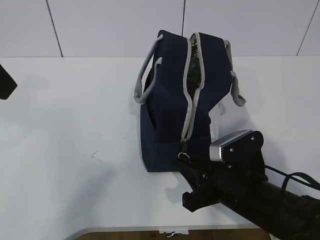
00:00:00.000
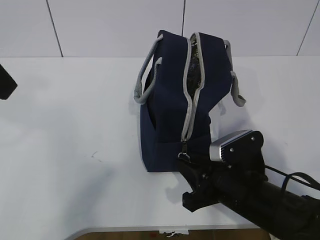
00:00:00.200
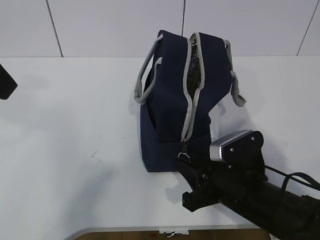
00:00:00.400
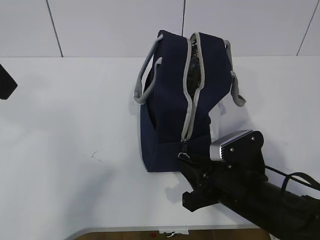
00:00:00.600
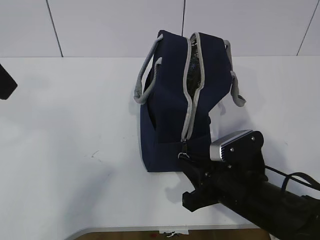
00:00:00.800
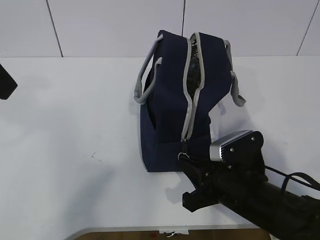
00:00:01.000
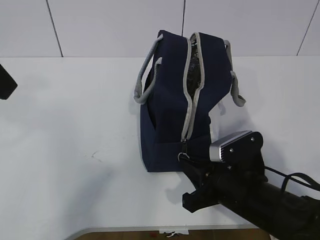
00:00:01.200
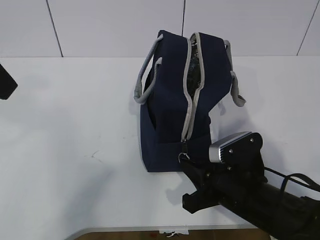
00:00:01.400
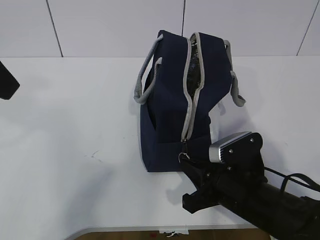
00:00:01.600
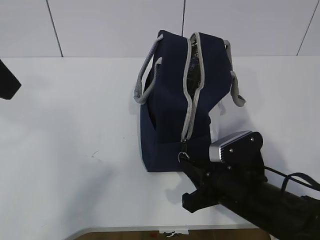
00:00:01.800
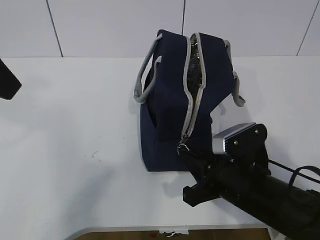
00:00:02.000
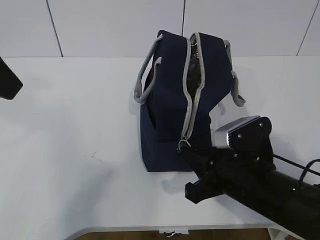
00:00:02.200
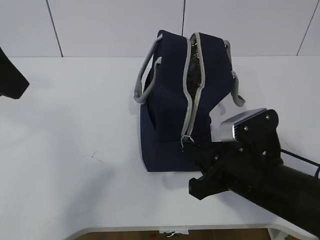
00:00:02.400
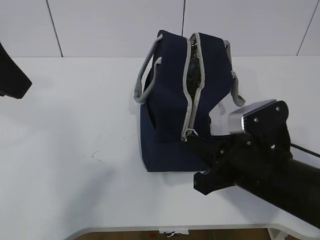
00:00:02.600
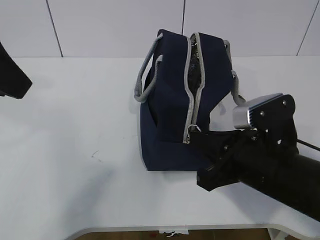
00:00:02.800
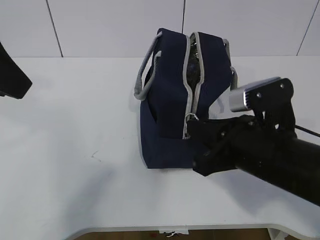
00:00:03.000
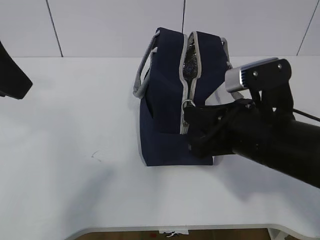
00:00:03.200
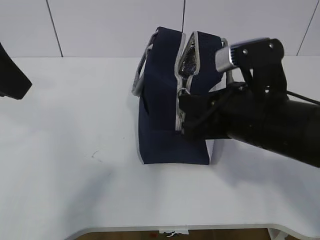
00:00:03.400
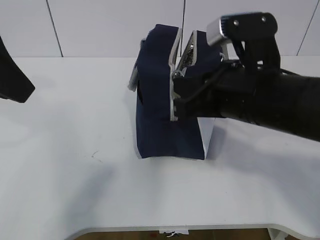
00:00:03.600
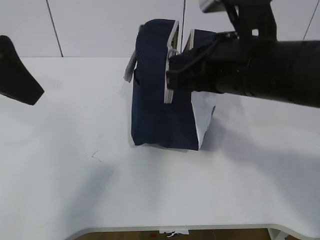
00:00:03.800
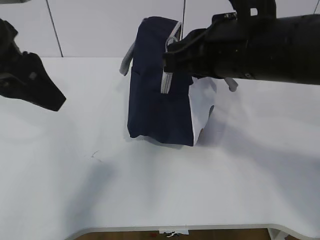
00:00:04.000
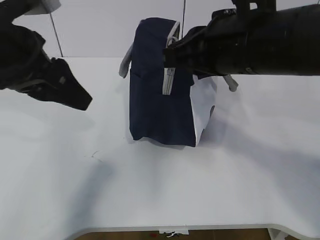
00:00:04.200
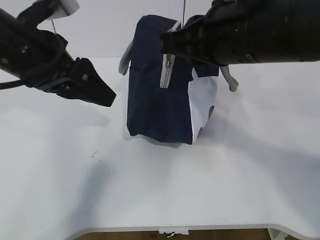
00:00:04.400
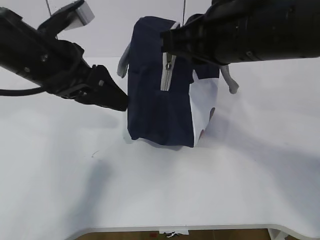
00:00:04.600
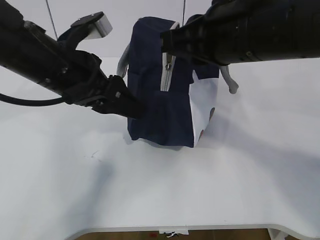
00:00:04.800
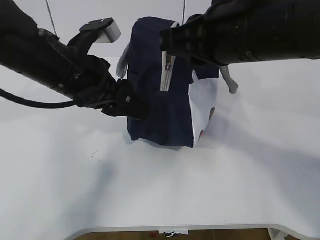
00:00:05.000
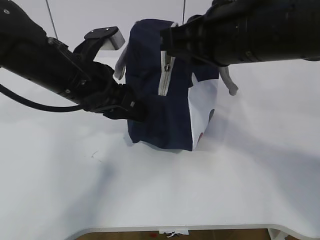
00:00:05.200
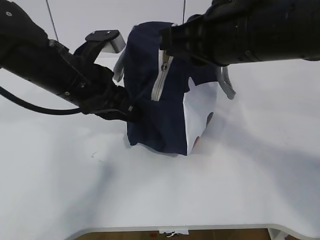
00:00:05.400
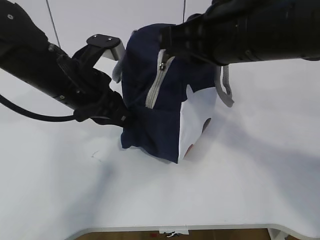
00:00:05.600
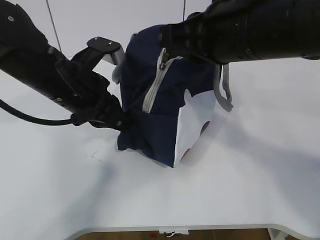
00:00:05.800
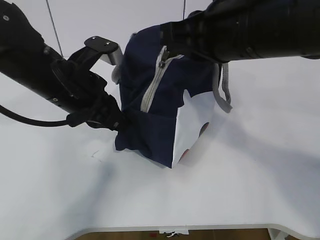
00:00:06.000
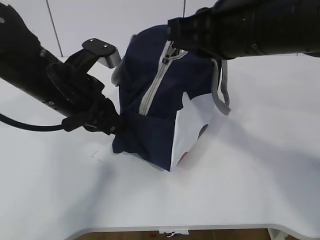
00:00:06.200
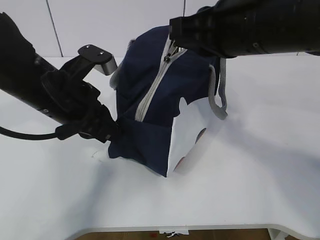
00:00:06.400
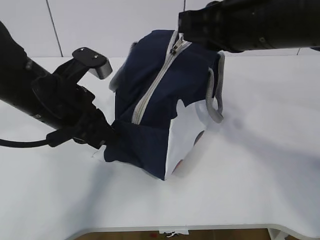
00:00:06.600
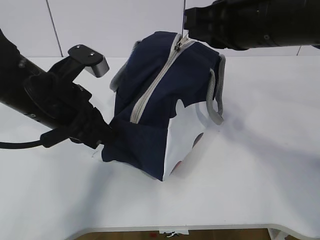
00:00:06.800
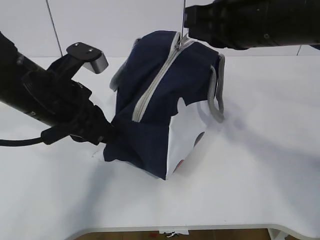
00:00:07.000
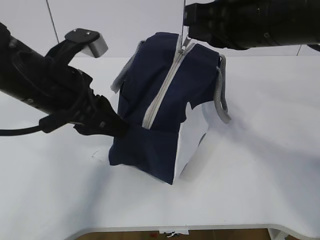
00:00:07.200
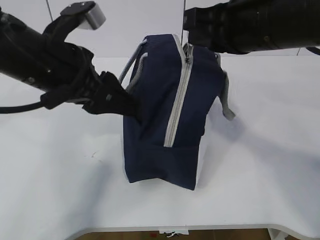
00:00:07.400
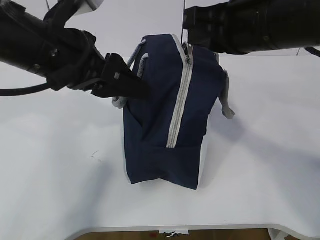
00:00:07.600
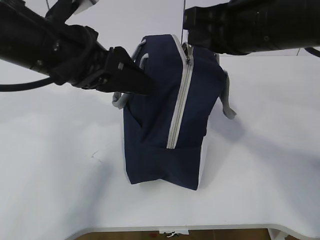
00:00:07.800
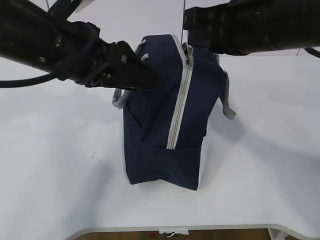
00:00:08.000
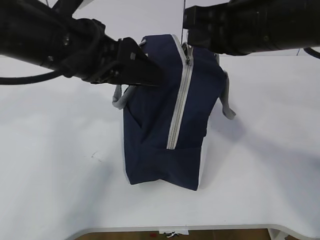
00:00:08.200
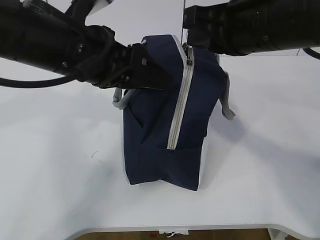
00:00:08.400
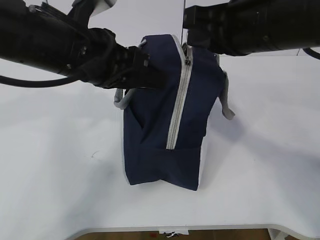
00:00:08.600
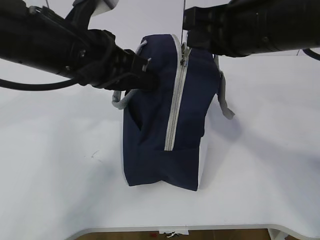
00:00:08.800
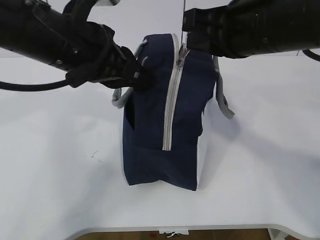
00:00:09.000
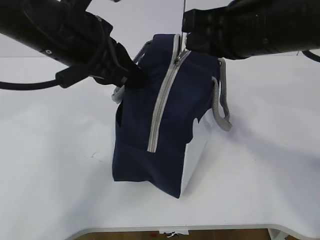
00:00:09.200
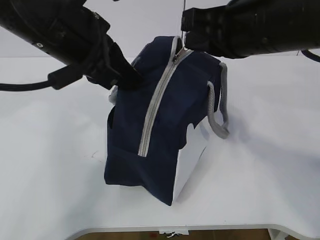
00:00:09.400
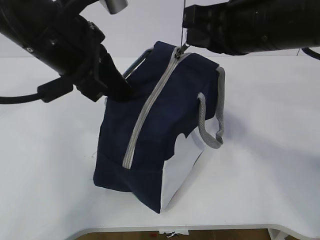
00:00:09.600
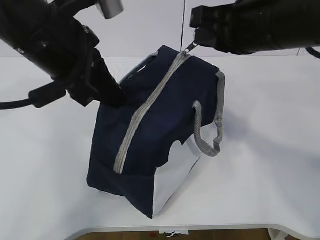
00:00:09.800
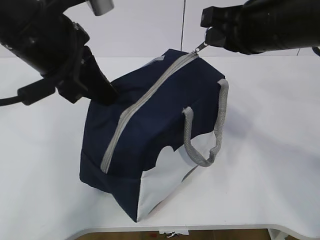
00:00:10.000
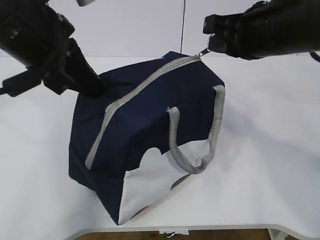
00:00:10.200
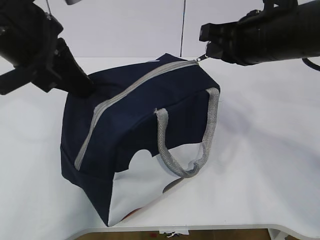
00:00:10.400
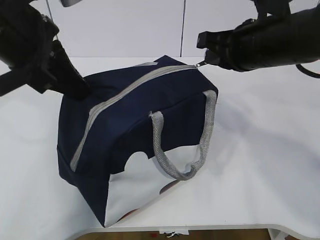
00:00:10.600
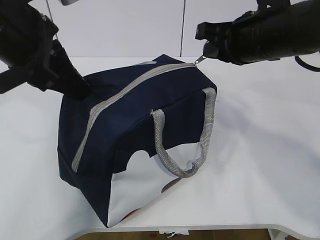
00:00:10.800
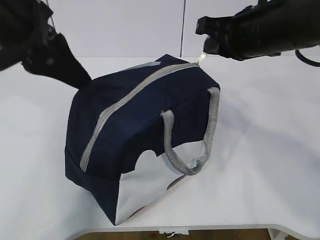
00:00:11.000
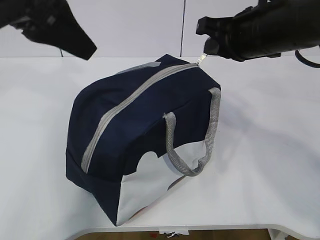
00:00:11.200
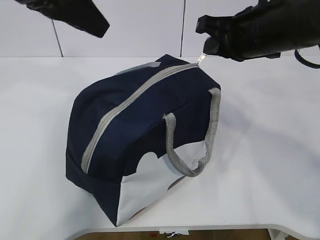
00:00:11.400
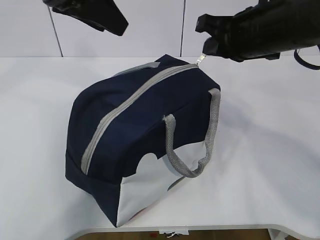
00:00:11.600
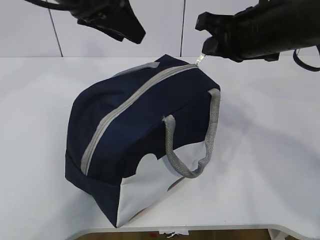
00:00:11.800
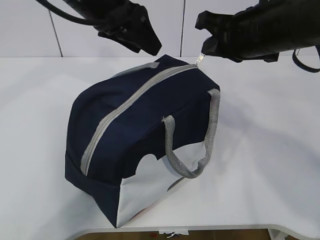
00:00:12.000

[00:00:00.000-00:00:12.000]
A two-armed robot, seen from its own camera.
Step, 00:00:00.000 to 00:00:11.800: Pull the zipper with your right hand.
00:00:00.000 to 00:00:01.600: The right gripper closes its fingers.
00:00:01.600 to 00:00:03.000: The right gripper heads upward, covering roughly 10 cm.
00:00:03.000 to 00:00:04.400: The left gripper travels downward and forward by roughly 10 cm. Meanwhile the right gripper travels upward by approximately 15 cm.
00:00:04.400 to 00:00:06.000: The left gripper goes some 5 cm downward, and closes.
00:00:06.000 to 00:00:07.600: The left gripper goes about 5 cm upward, and opens up.
00:00:07.600 to 00:00:09.000: The left gripper closes.
00:00:09.000 to 00:00:10.400: The right gripper ends up some 5 cm from where it was. The left gripper shifts approximately 5 cm to the left.
00:00:10.400 to 00:00:12.000: The left gripper heads forward and to the right, covering some 10 cm, and opens up.

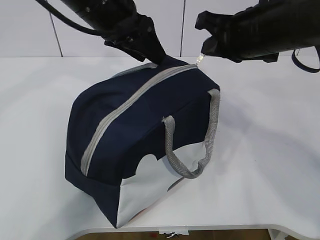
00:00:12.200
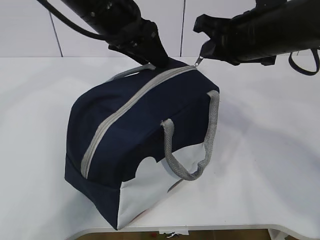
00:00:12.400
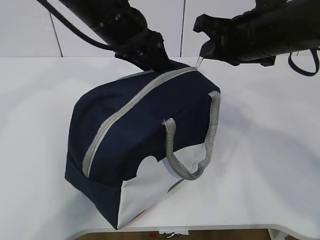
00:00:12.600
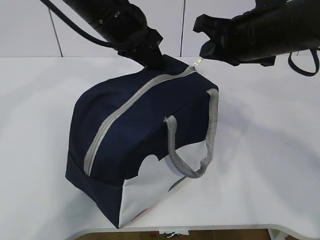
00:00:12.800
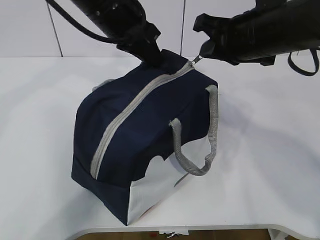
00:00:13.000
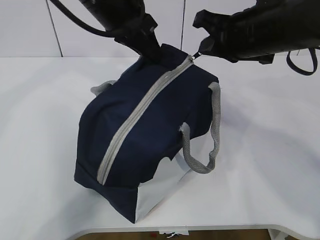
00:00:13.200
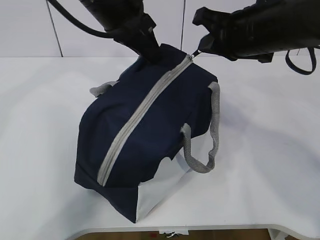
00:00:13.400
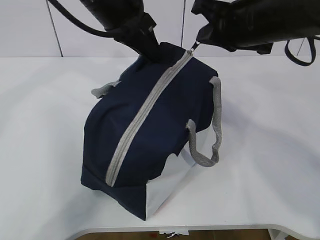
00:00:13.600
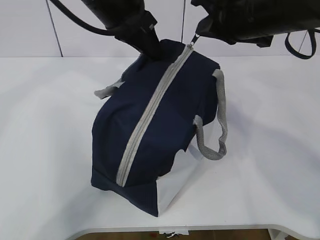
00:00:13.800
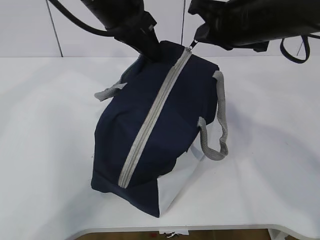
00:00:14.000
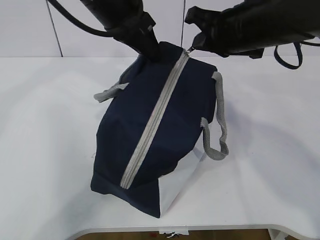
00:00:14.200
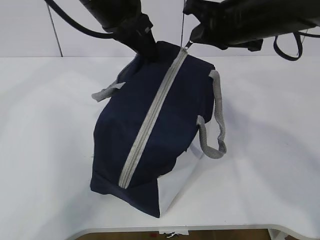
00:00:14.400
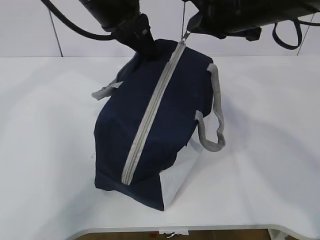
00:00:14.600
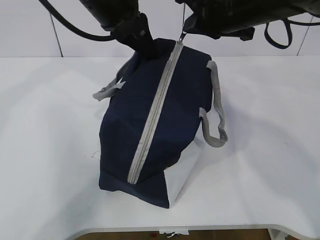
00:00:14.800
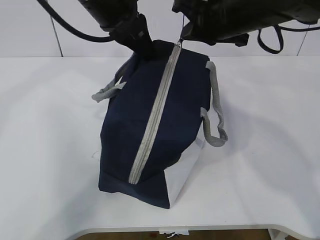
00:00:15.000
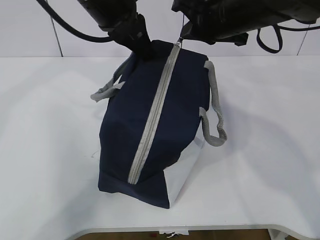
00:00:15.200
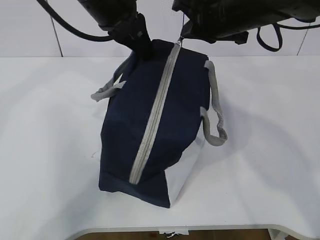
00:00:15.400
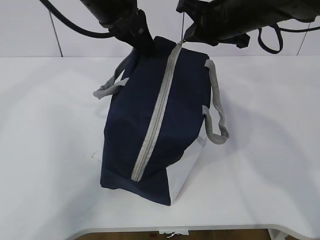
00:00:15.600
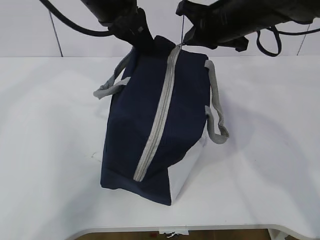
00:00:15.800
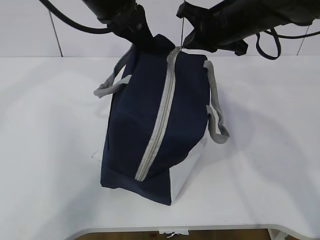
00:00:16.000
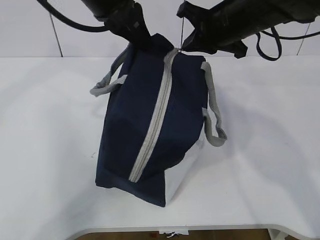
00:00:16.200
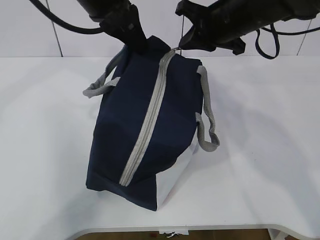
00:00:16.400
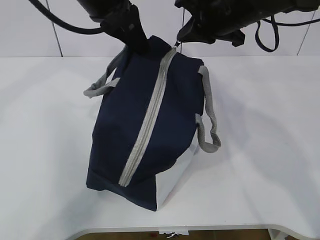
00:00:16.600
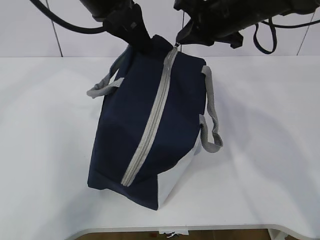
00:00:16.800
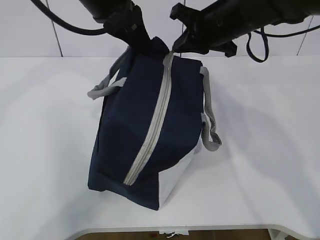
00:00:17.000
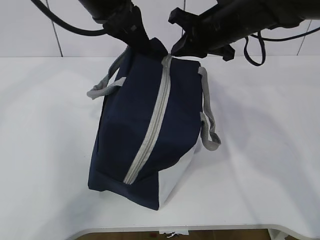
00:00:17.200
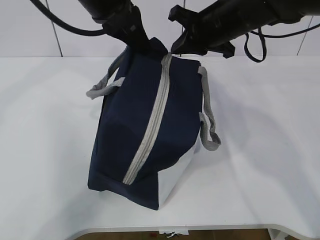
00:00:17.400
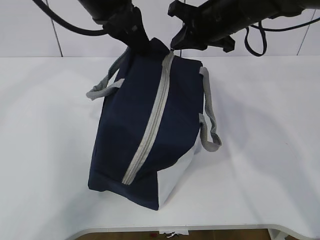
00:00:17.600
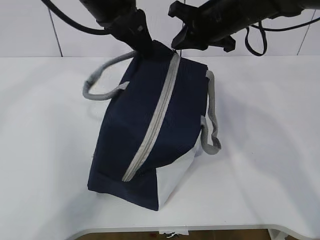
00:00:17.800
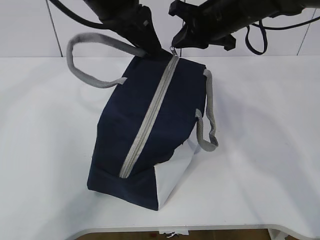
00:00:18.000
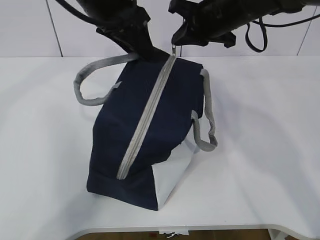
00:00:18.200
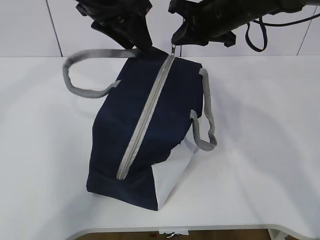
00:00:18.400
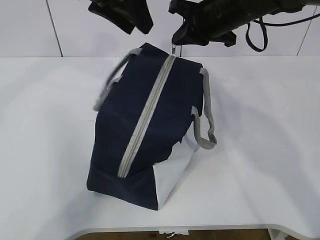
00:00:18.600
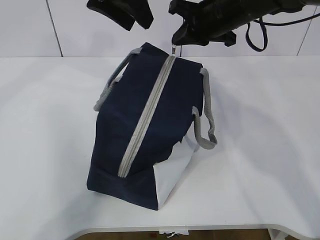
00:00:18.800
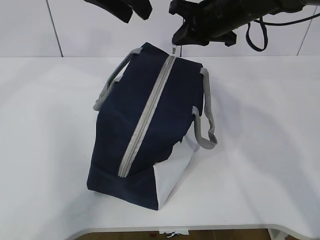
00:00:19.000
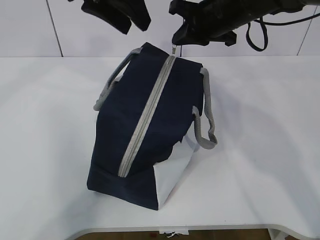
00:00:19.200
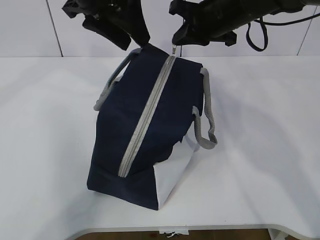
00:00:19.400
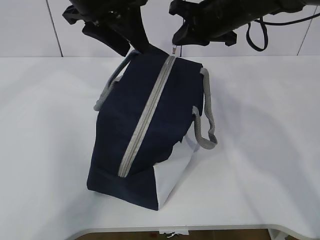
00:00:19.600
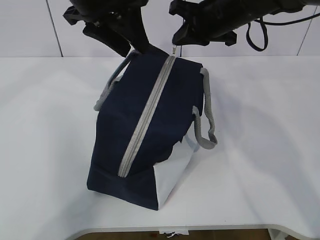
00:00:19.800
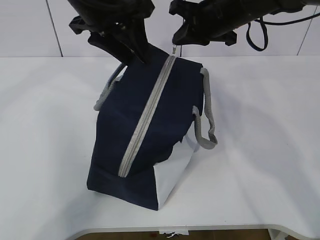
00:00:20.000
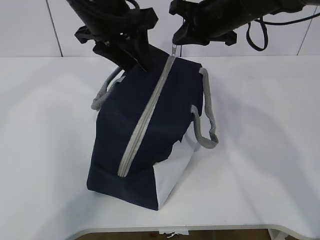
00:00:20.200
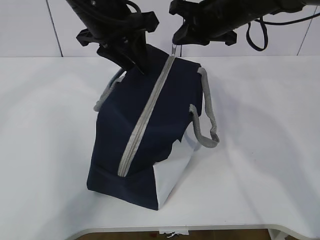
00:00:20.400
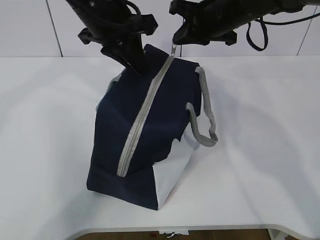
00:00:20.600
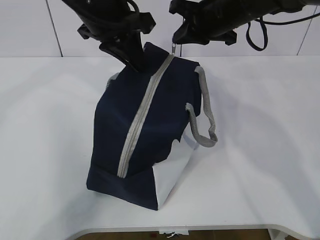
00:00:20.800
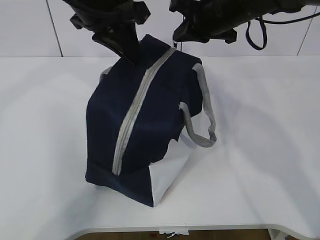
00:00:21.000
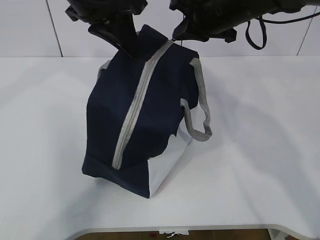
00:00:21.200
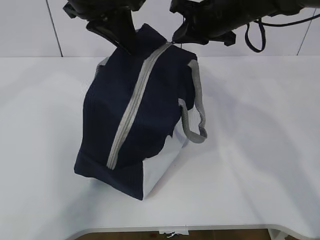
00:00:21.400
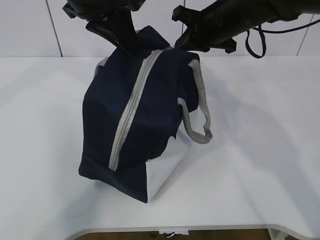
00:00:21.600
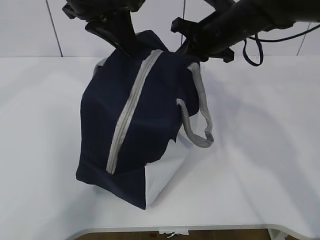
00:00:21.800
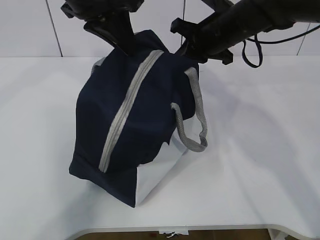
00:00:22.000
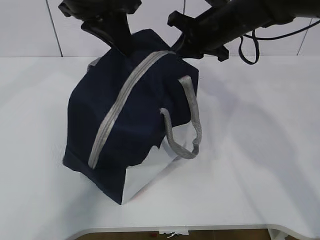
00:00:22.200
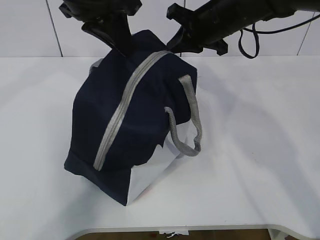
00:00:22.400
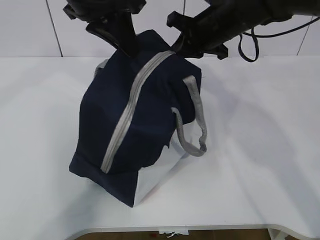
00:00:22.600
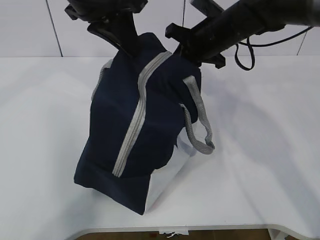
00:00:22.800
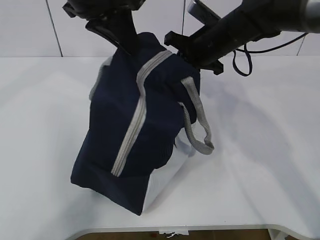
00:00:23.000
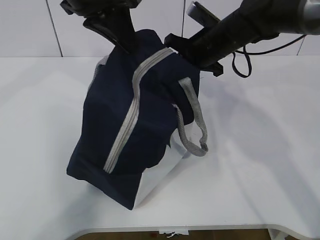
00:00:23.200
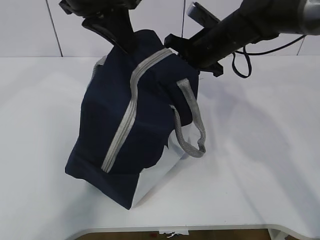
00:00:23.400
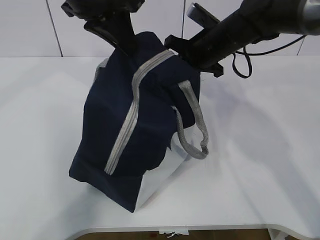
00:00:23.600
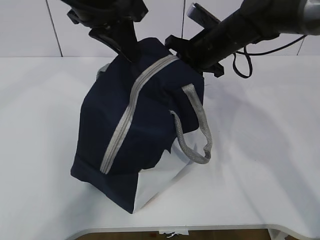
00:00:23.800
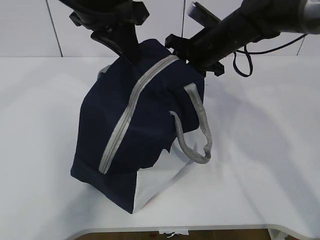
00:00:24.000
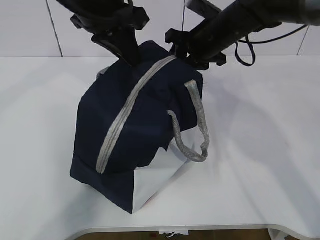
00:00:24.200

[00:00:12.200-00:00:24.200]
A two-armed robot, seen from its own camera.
Step, 00:00:12.200 to 00:00:12.600: Grab the lunch bag with your left hand.
00:00:12.200 to 00:00:13.800: The left gripper closes.
00:00:13.800 to 00:00:15.200: The right gripper shifts by roughly 5 cm.
00:00:15.200 to 00:00:16.600: There are only small adjustments of the grippers.
00:00:16.600 to 00:00:18.200: The left gripper opens.
00:00:19.800 to 00:00:21.200: The left gripper closes its fingers.
00:00:21.200 to 00:00:22.600: The grippers stay close to where they were, moving slightly.
00:00:22.600 to 00:00:24.200: The right gripper opens up.
